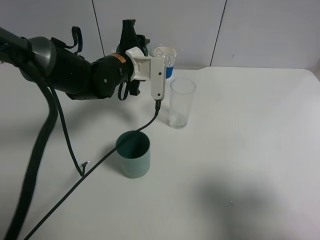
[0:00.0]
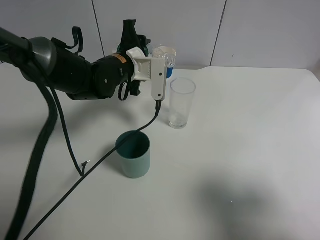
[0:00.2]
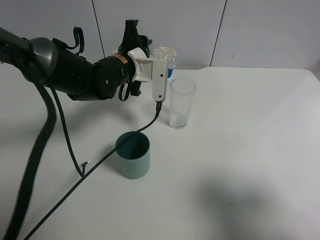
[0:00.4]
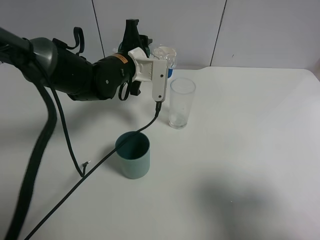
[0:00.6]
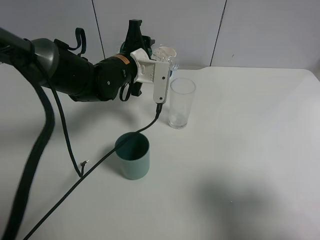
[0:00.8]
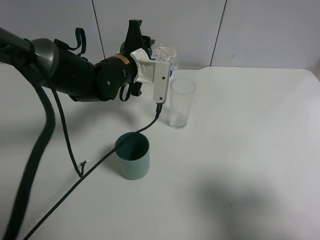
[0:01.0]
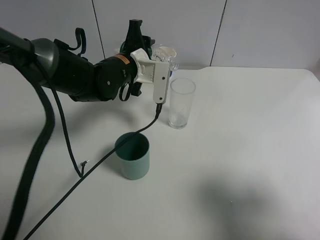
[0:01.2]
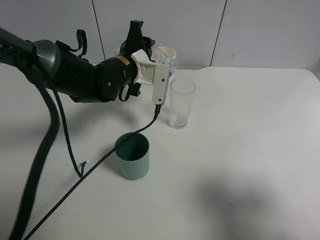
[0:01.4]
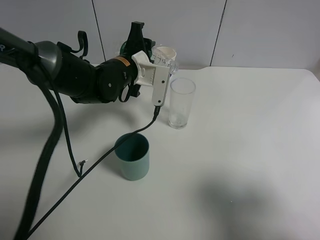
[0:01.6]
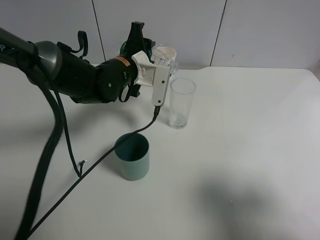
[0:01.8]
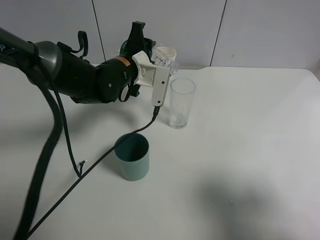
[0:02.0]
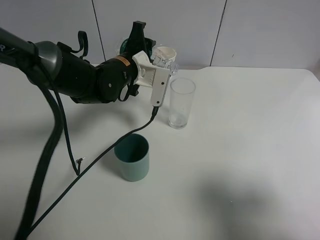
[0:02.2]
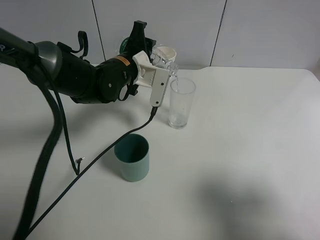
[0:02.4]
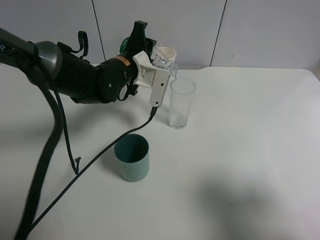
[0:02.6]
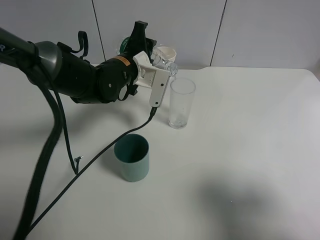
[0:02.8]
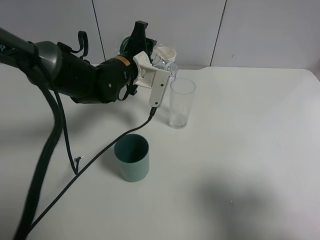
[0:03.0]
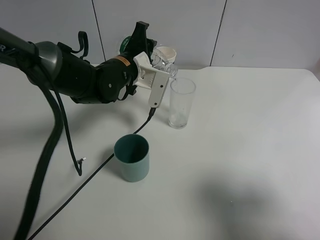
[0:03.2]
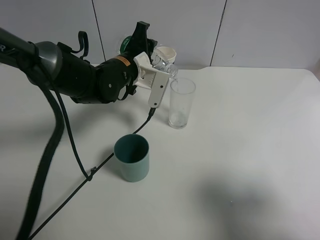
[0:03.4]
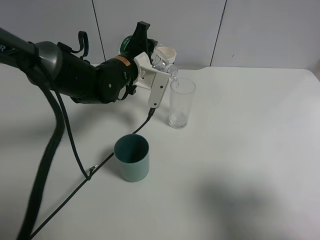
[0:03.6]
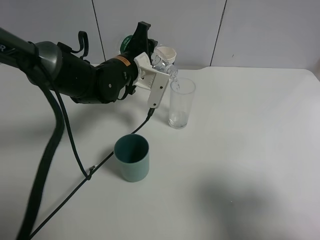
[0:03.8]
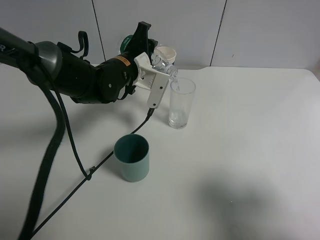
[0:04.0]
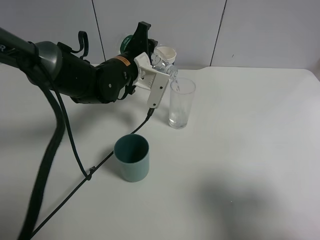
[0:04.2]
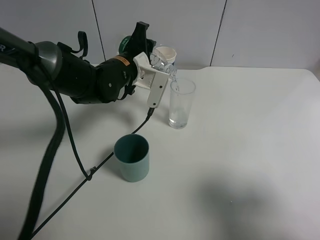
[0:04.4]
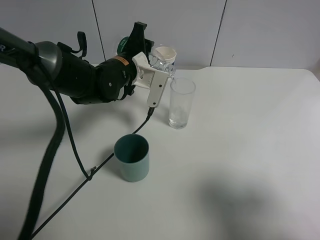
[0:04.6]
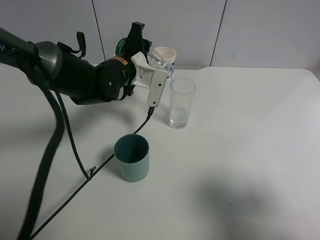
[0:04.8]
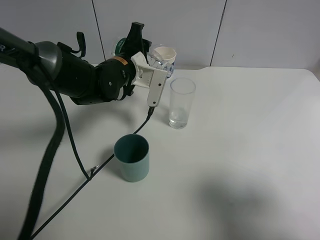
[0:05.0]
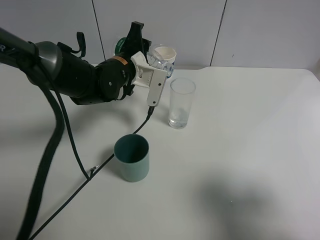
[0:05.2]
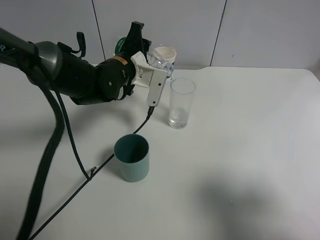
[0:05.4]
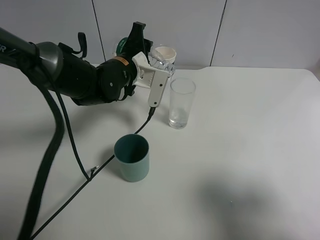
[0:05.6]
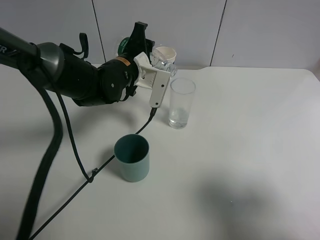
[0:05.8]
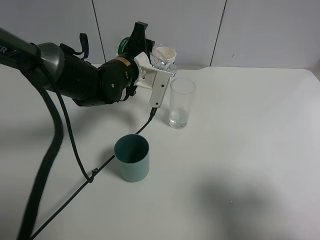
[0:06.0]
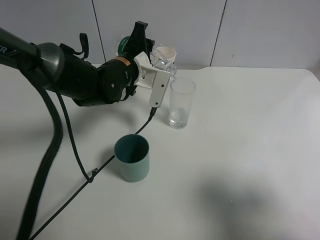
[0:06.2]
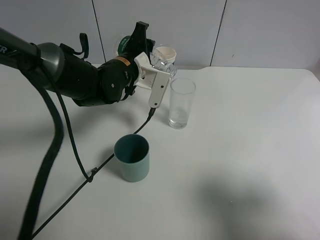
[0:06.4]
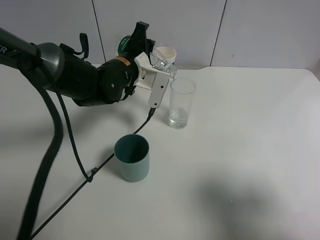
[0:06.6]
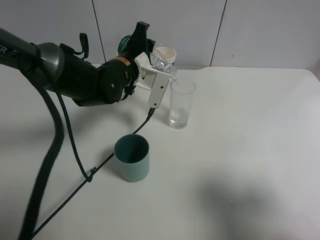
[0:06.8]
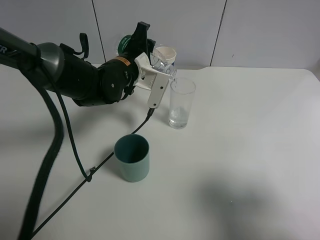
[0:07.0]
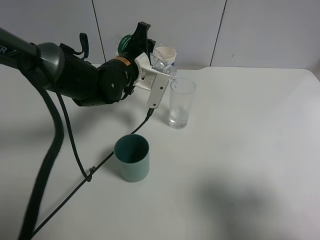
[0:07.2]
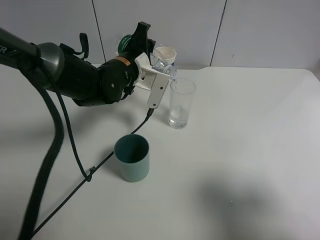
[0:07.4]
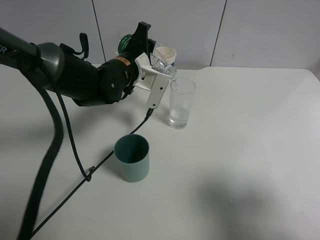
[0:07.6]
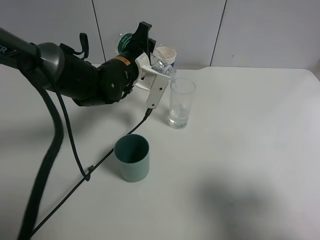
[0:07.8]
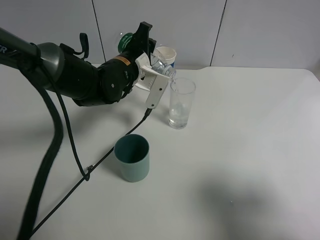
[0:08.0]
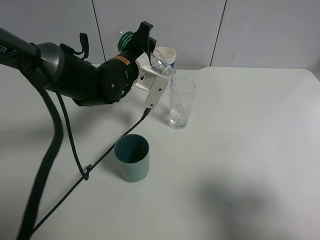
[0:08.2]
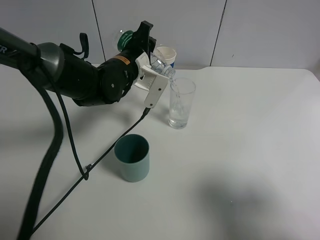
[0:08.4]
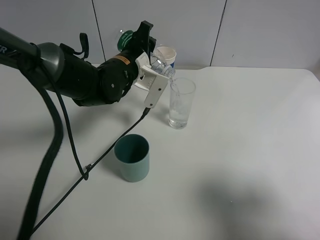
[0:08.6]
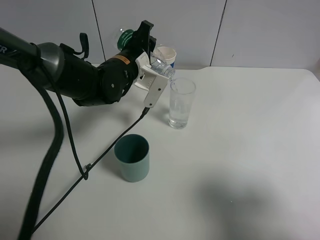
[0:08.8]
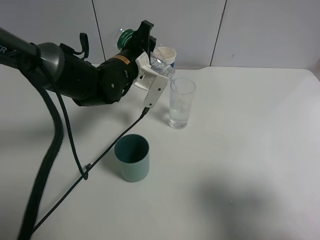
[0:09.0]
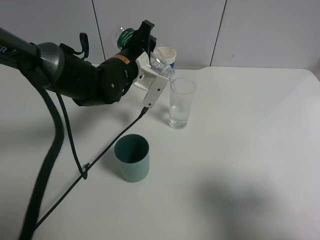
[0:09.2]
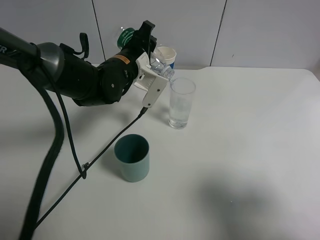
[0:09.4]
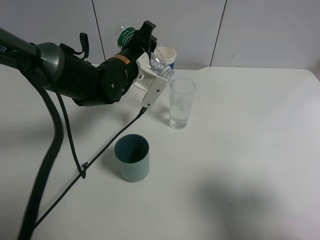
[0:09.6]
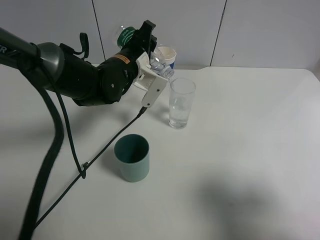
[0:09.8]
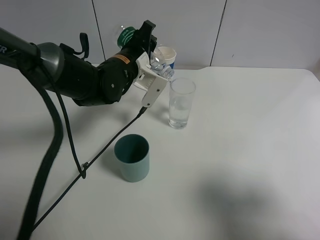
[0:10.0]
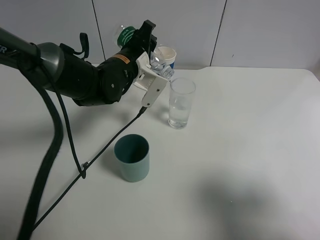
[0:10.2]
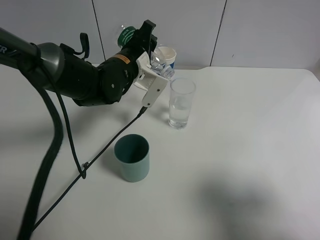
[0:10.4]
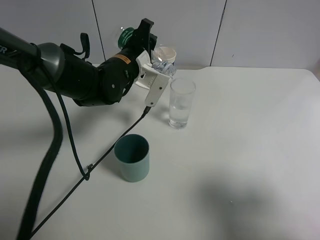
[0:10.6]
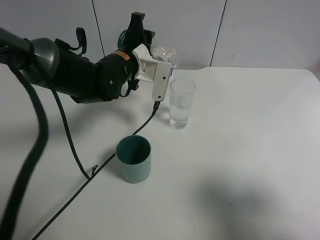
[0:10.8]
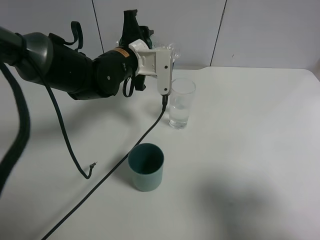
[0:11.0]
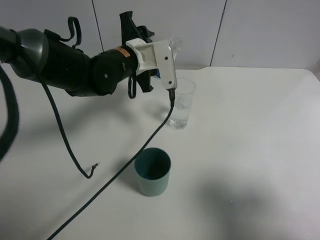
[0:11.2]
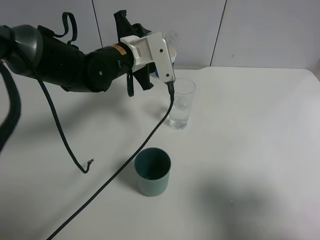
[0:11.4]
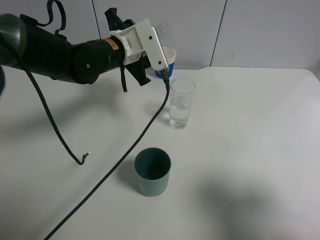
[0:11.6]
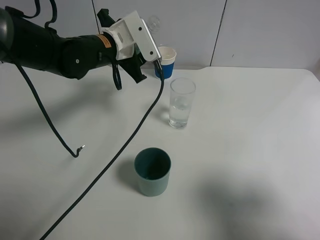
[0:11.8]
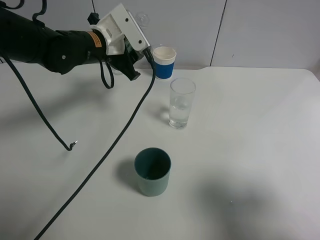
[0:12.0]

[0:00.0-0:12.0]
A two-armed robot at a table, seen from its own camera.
Task of the whole recording: use a gripper to hold the bottle of the drink and pour it into a random cup.
Step, 0:00.0 to 0:11.2: Pour the mineral water into the glass with the left gripper.
0:00.0 to 0:03.0: The grippers move only a little.
0:03.0 to 0:06.0: The two grippers keep their place.
0:06.0 to 0:09.0: There are only small adjustments of the grippers.
0:09.0 to 0:10.4: Neither gripper changes place.
0:10.4 to 0:12.0: The left gripper shifts about 5 cm to the left.

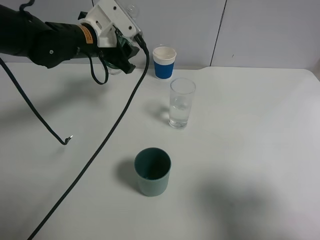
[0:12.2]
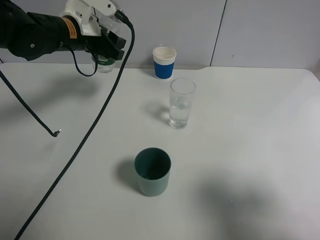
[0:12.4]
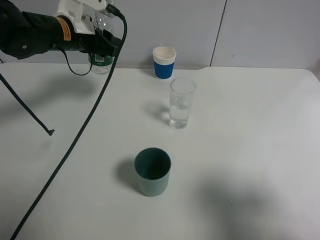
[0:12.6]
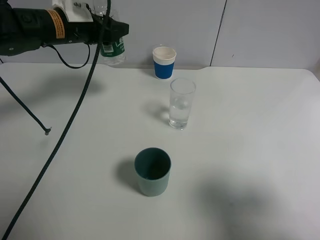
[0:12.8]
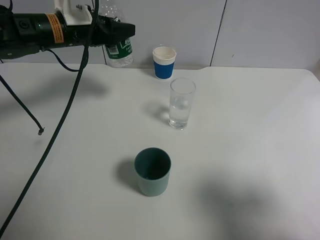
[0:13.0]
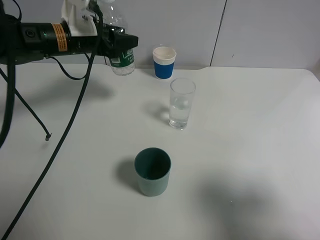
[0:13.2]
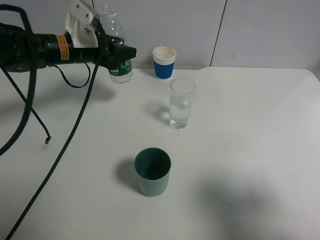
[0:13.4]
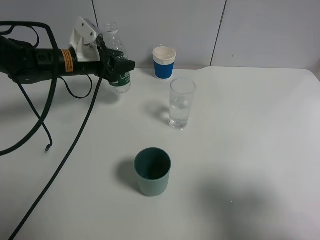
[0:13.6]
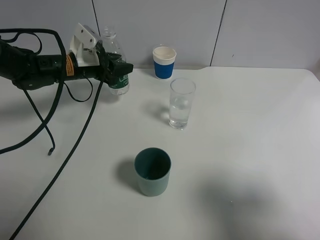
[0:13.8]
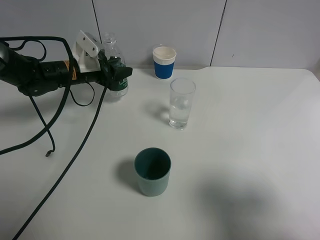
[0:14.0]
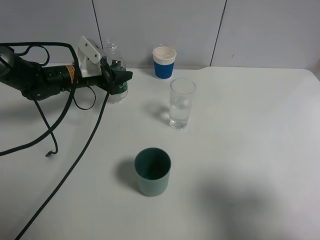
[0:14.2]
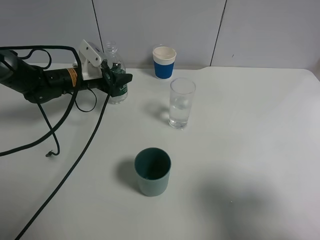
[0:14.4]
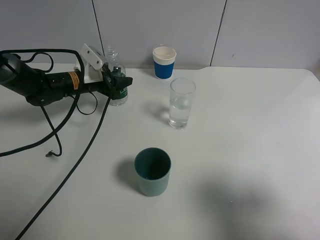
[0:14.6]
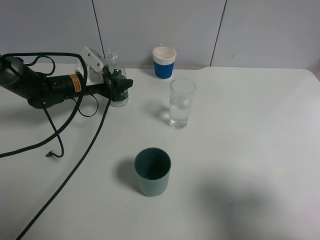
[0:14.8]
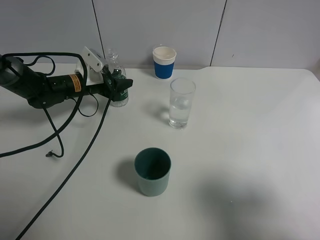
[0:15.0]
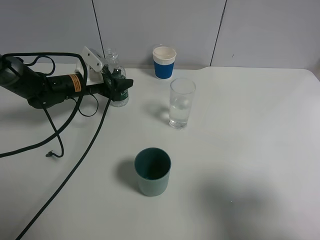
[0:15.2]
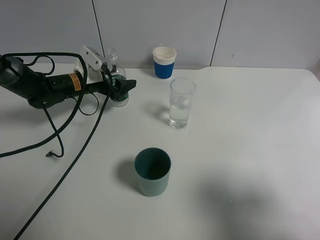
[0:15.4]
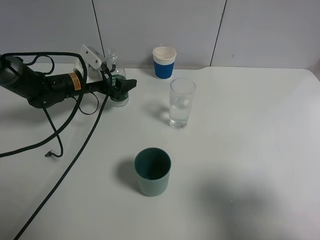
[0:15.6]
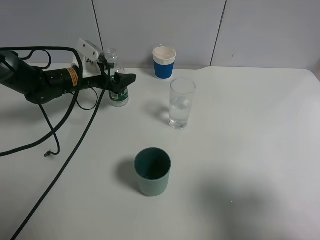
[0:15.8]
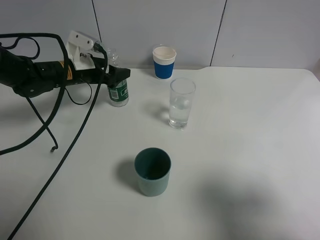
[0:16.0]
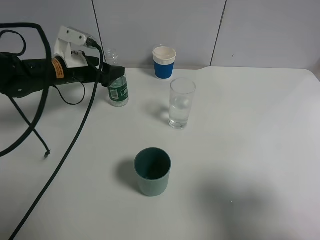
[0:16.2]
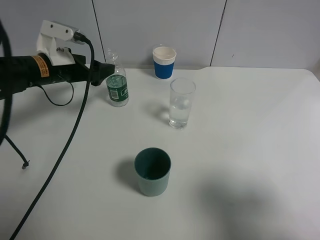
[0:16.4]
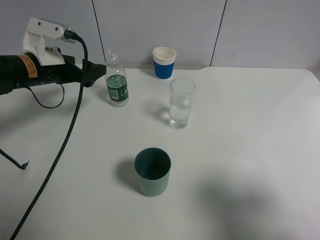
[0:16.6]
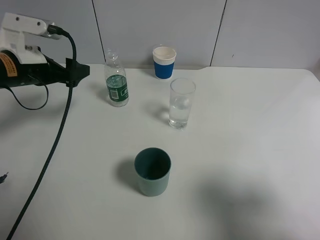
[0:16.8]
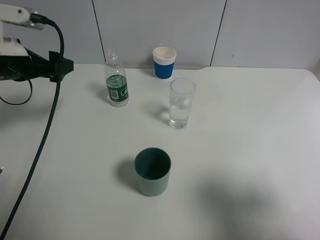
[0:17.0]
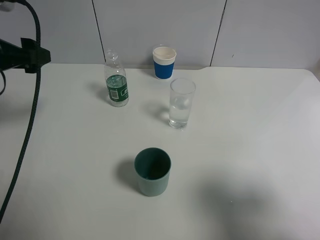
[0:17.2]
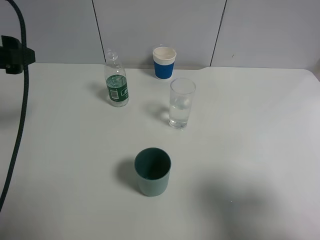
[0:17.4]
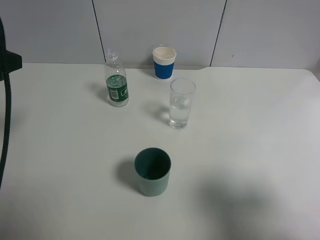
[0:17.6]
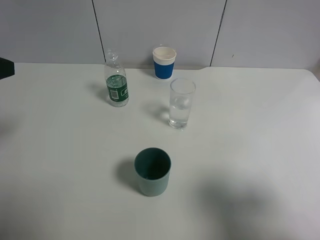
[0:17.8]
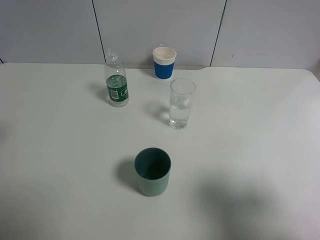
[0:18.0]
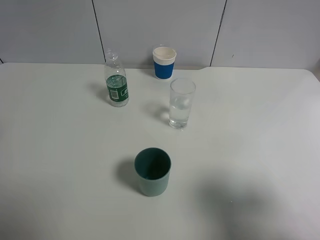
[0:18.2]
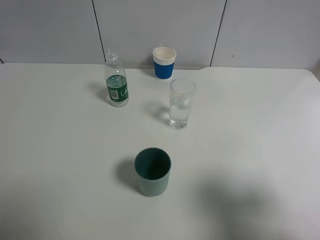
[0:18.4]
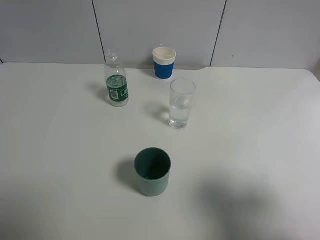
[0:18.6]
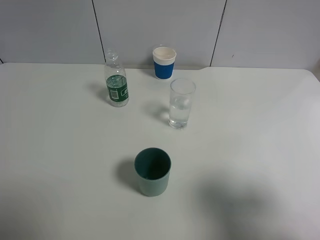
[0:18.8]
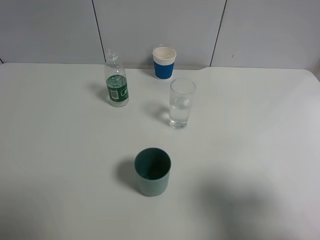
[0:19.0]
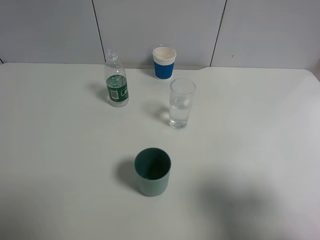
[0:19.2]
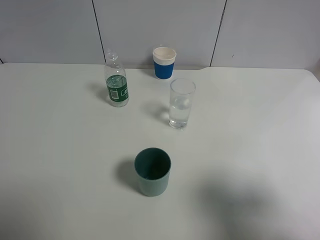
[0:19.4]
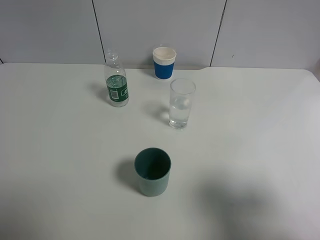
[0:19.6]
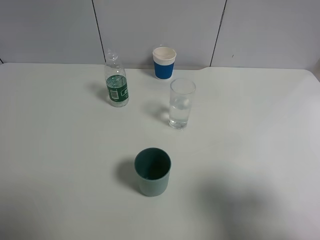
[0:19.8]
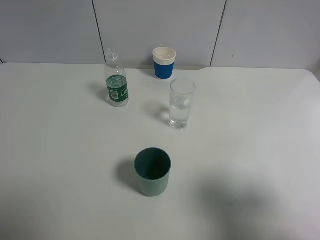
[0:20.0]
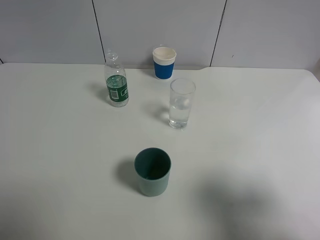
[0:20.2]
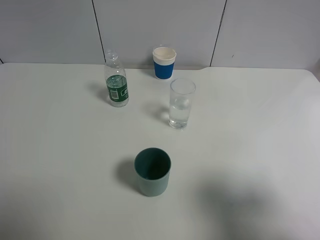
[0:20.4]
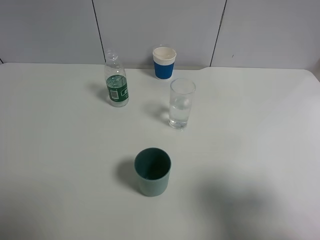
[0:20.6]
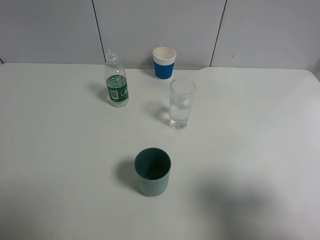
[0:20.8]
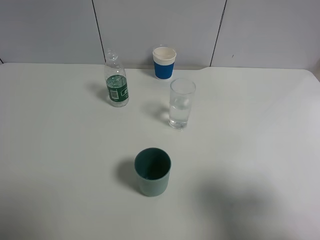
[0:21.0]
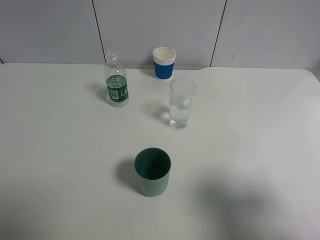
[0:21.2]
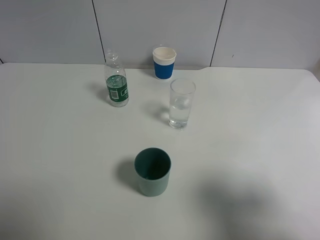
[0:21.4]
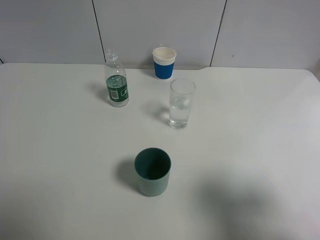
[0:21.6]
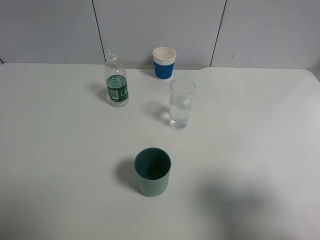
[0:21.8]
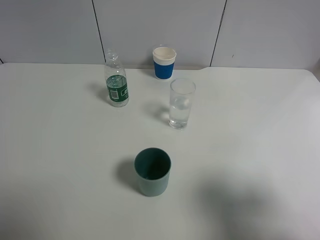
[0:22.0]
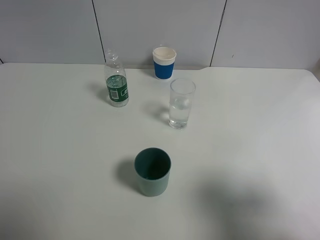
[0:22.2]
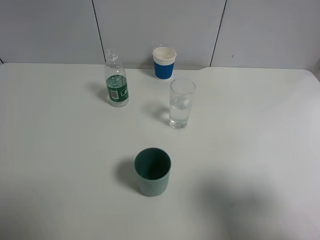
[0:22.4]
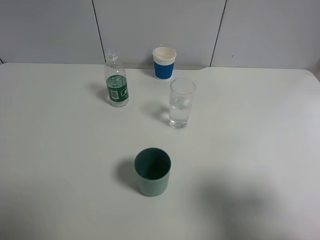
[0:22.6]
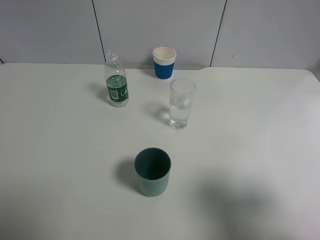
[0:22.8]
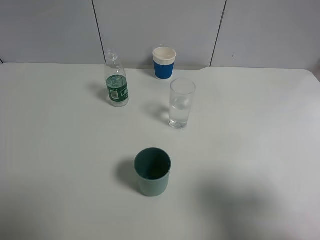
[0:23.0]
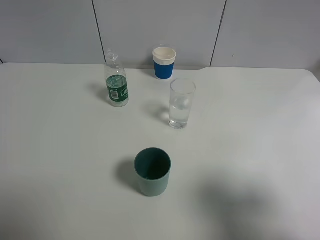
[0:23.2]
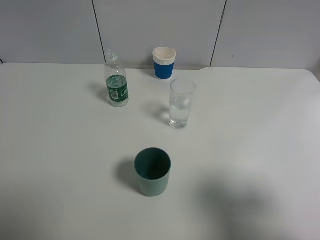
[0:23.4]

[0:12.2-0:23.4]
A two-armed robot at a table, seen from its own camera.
Task of the whole recording: use a gripper to hold the bottle of the drink and pour it into a random cup.
Step, 0:12.2 to 0:17.0: Place the mineral water bottle on the table with the left gripper.
0:12.2 to 0:13.8: The left gripper is displaced downward and to the left by roughly 10 cm.
0:13.8 to 0:15.4: The left gripper goes approximately 5 cm downward, and opens.
0:15.4 to 0:17.0: The left gripper travels upward, backward and to the left by roughly 20 cm.
0:17.0 to 0:18.6: The left gripper heads backward and upward, covering approximately 20 cm.
0:21.8 to 0:23.4: Both grippers stay about where they are.
